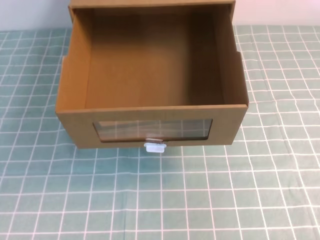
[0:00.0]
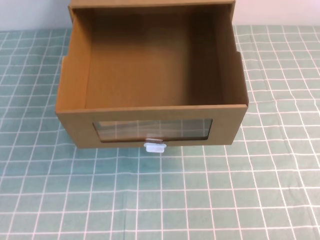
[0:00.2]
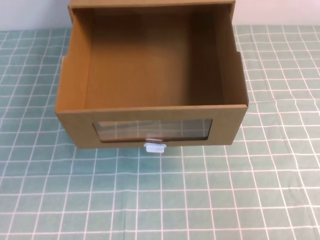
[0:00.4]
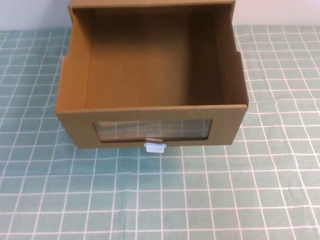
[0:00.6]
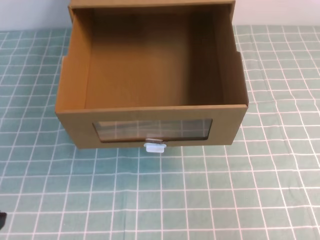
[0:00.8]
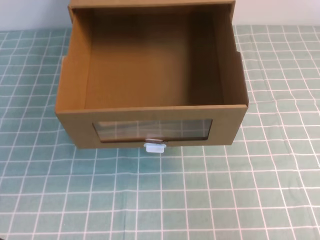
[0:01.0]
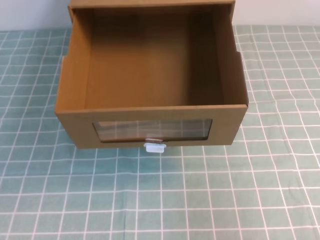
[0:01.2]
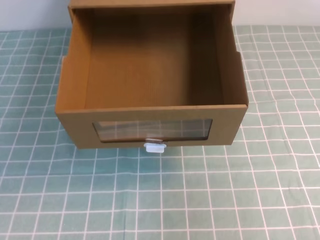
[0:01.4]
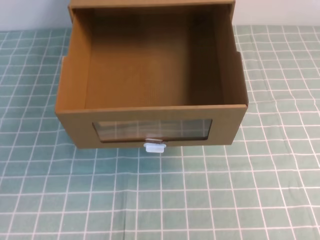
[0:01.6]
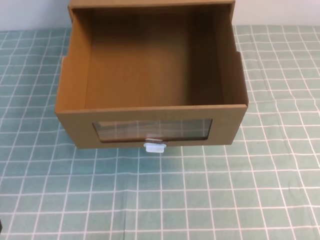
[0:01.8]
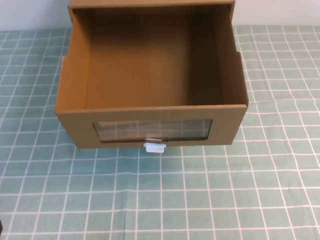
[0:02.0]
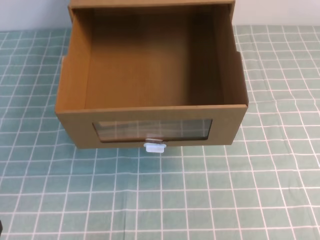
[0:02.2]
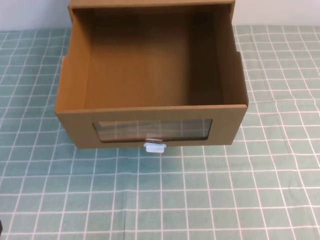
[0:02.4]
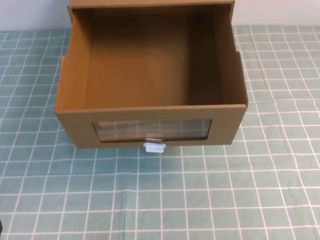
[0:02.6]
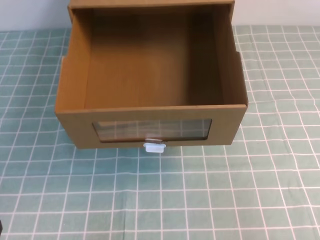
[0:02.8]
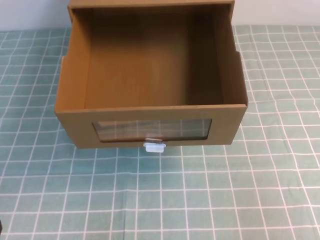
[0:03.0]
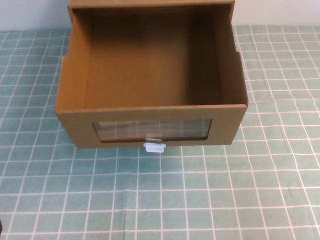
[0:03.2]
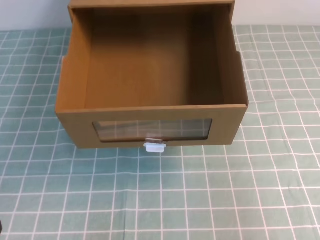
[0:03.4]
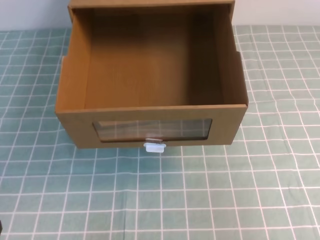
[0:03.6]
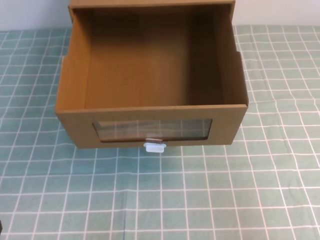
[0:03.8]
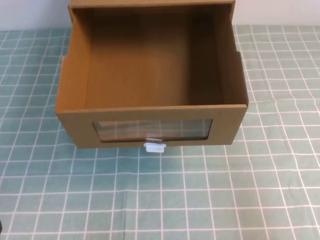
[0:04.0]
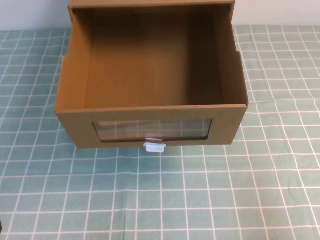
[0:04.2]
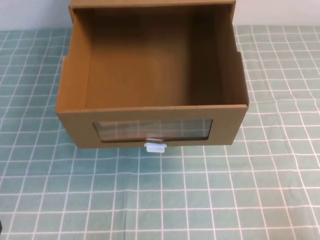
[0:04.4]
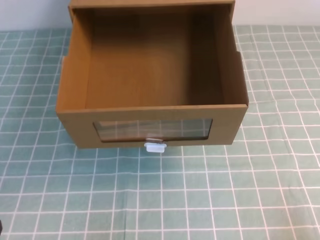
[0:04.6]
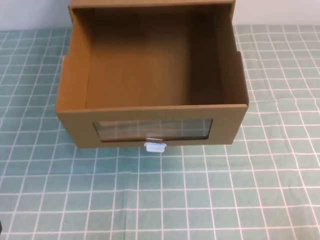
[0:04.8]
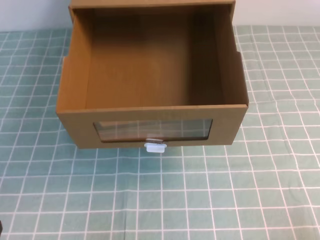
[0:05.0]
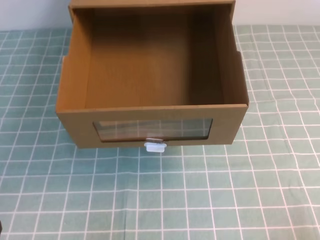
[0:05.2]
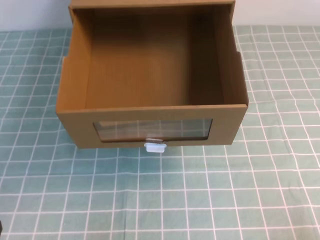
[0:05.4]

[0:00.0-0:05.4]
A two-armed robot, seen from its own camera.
Task of the whole recording: open the shoebox on the cyan tablecloth.
0:00.0 to 0:01.4: The left gripper moves downward, some 20 cm.
0:04.0 to 0:05.4: The right gripper shifts approximately 15 cm downward.
